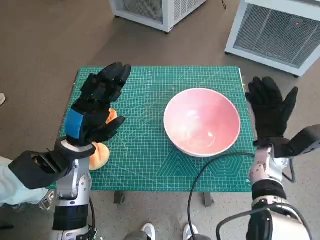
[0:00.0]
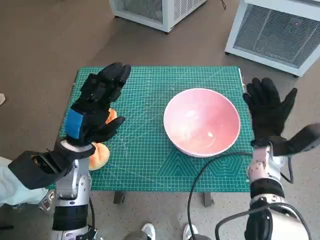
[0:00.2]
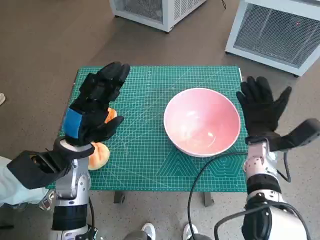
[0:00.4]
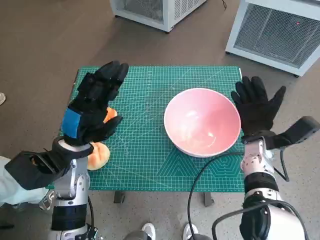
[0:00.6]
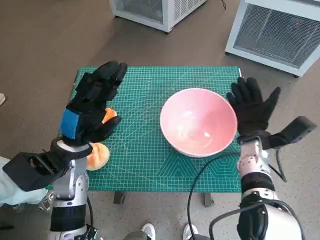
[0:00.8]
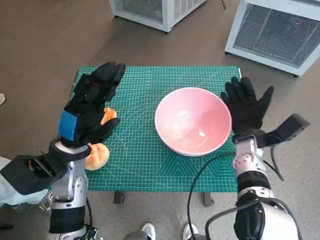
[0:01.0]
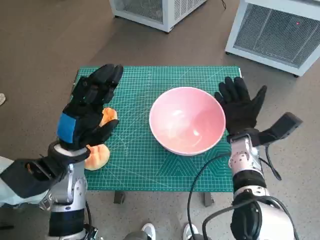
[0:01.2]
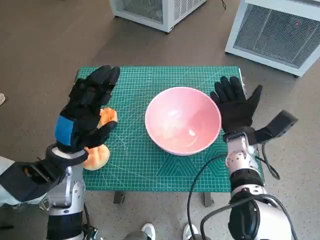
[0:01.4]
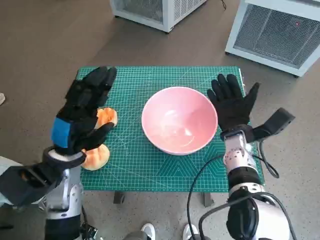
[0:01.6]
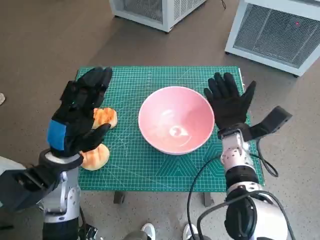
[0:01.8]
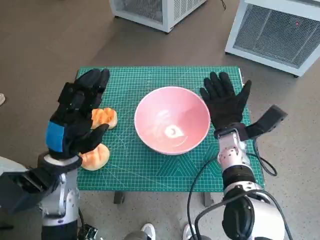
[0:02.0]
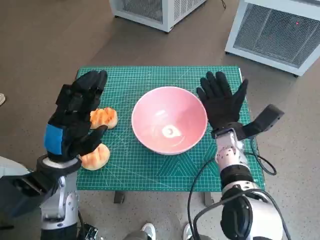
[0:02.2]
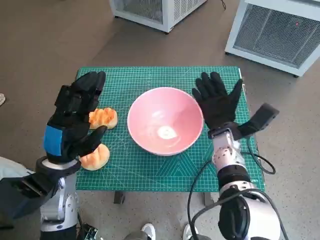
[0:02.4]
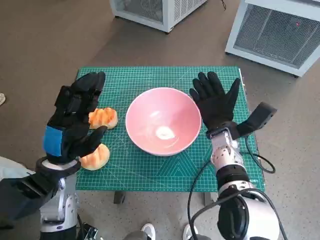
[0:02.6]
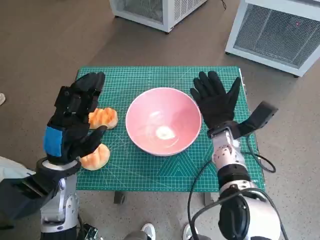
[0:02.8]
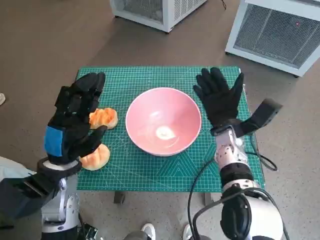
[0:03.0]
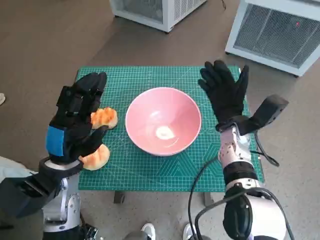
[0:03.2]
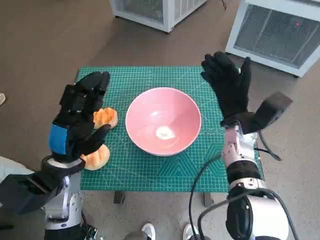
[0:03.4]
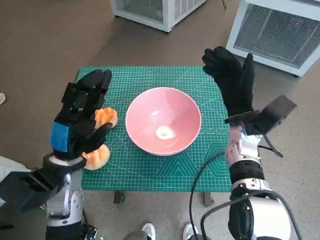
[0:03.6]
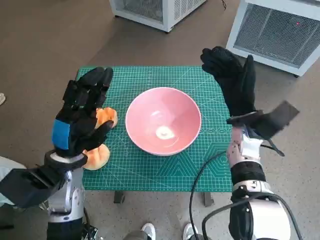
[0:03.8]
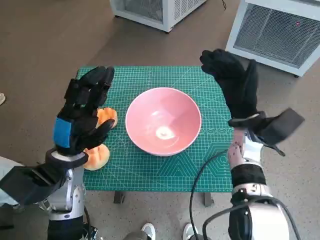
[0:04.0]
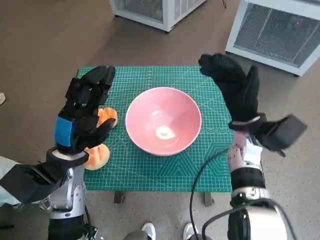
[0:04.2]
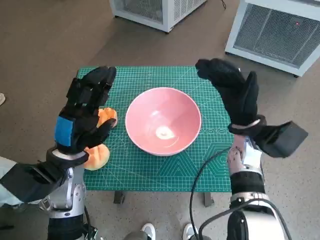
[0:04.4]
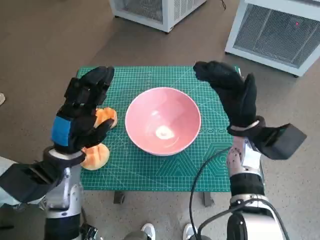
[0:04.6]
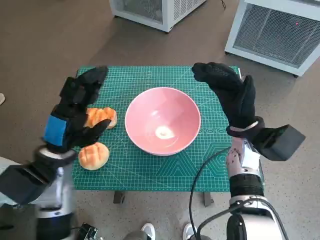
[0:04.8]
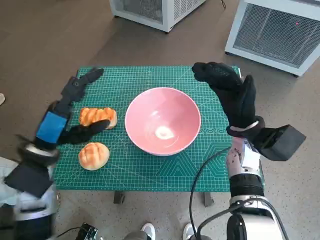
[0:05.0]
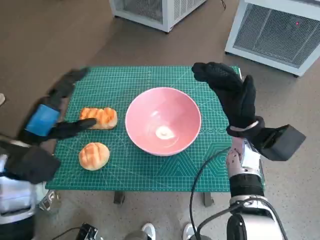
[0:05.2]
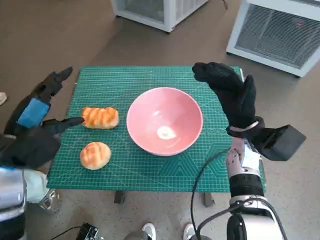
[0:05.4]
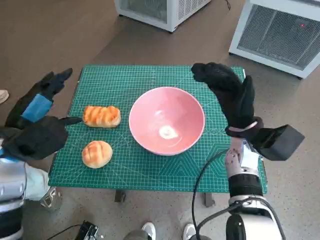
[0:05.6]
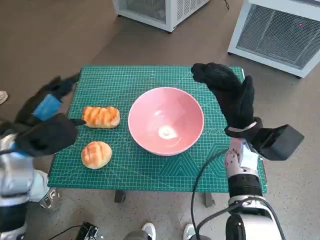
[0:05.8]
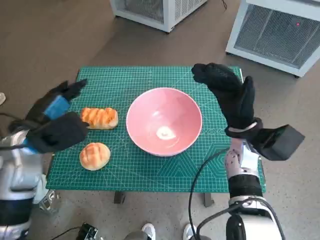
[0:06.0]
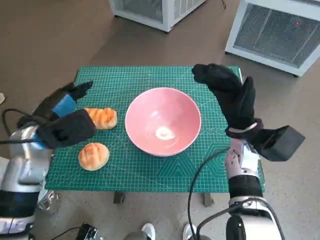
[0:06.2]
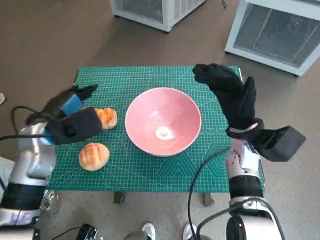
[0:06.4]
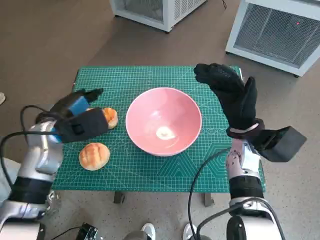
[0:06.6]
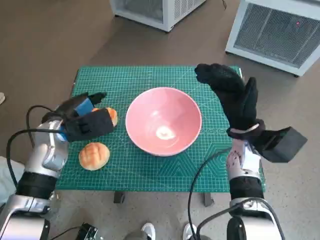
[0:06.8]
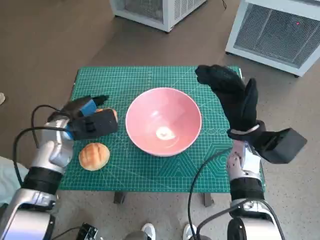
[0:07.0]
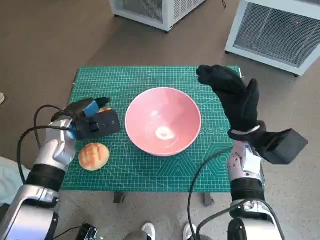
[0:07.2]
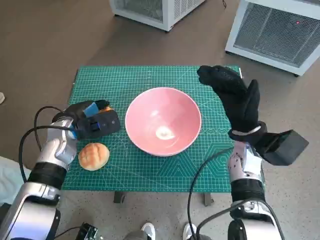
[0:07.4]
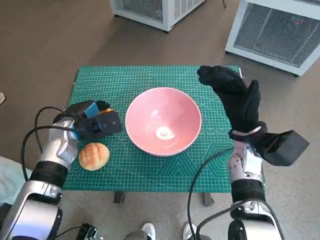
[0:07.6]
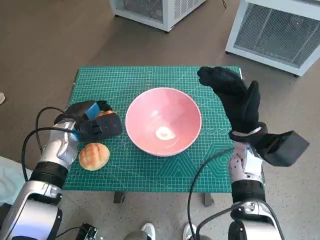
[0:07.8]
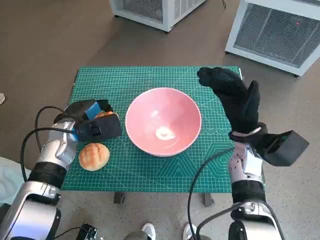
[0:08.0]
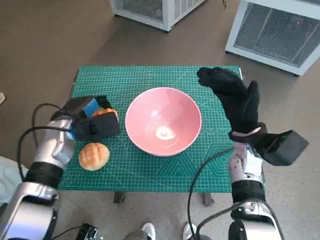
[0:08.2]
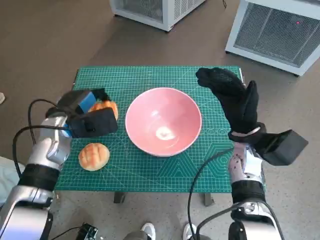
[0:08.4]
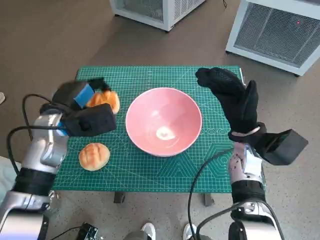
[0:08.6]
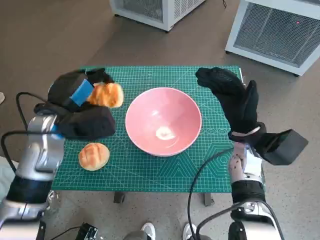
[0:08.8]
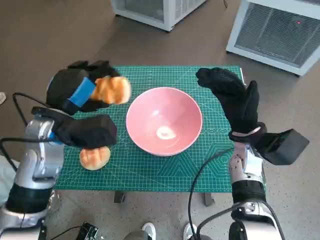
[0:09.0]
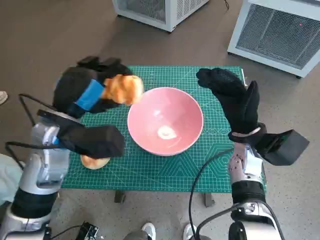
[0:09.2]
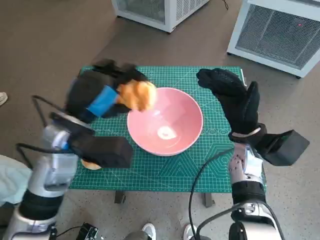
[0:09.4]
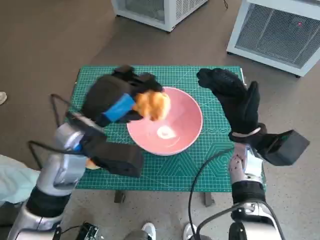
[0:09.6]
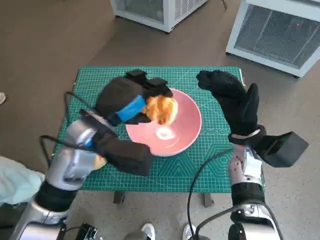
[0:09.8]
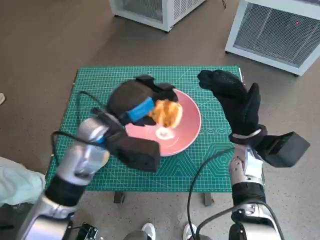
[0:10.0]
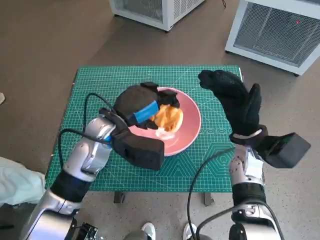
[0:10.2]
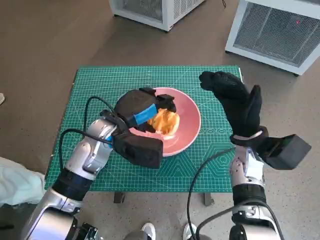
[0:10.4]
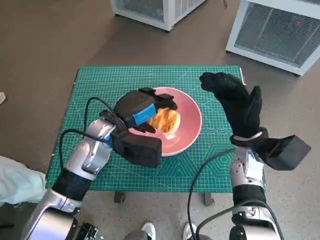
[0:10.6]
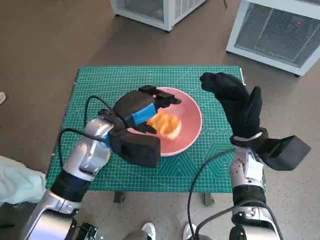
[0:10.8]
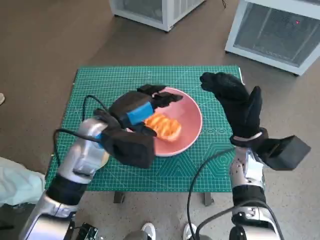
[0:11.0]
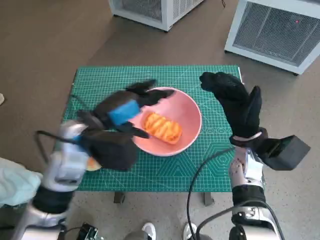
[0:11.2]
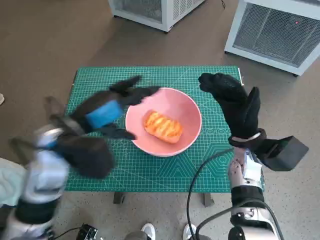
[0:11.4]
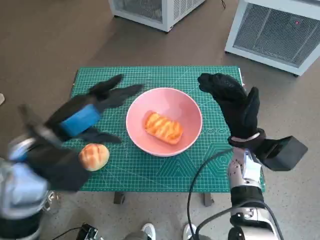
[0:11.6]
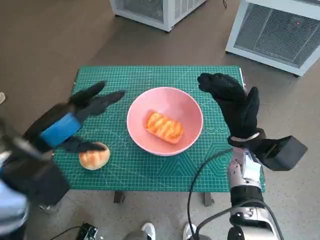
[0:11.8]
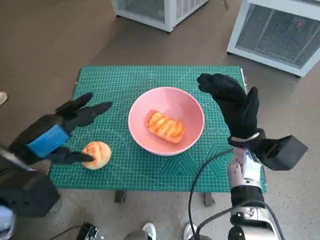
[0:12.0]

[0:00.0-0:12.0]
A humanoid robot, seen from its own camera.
Task of the whole recording: Push the bowl into the center of the table and put the bread into the bowl.
Step, 0:00.0 to 0:02.8: Move the pink bowl to the center of table with right hand.
Step, 0:03.0 to 0:07.6: Grasp the long bread with left hand.
Step, 0:07.8 to 0:11.0: Place the long bread in pink bowl with left hand.
0:00.0 to 0:01.6: The right hand travels to the left by roughly 5 cm.
0:04.4 to 0:06.0: The left hand travels to the left by approximately 5 cm.
0:06.0 to 0:07.6: The left hand travels downward and forward by some 10 cm.
0:07.6 to 0:09.0: The left hand goes roughly 10 cm upward.
0:09.0 to 0:10.4: The left hand shifts approximately 10 cm to the right and downward.
0:10.4 to 0:12.0: The left hand shifts some 20 cm to the left, backward and upward.

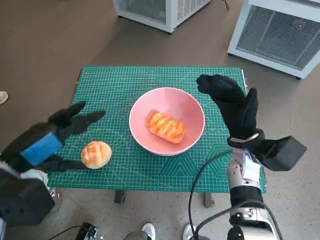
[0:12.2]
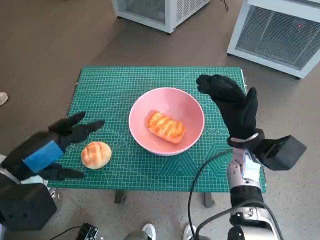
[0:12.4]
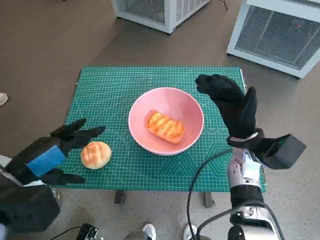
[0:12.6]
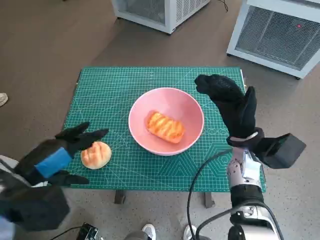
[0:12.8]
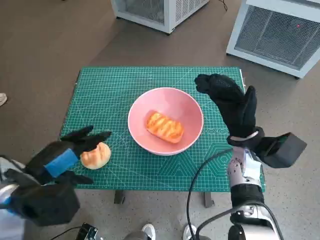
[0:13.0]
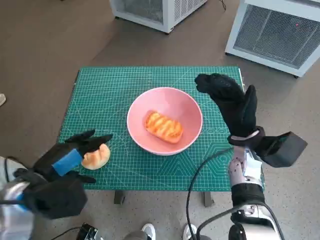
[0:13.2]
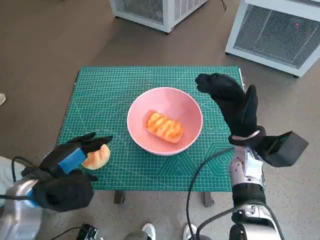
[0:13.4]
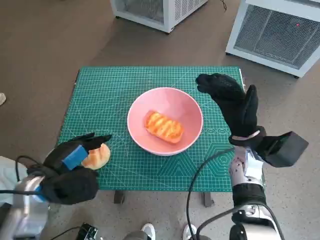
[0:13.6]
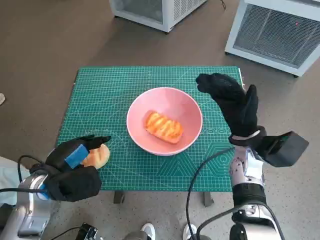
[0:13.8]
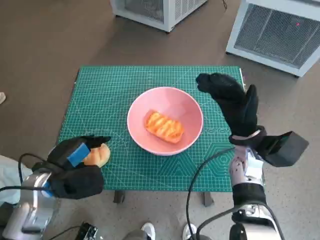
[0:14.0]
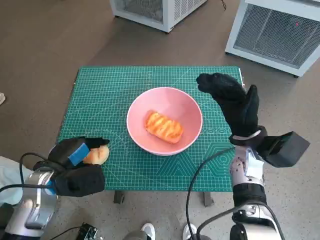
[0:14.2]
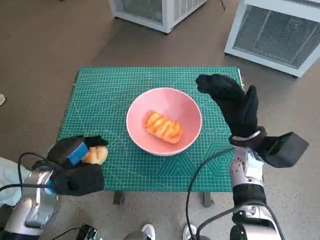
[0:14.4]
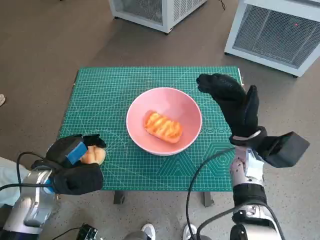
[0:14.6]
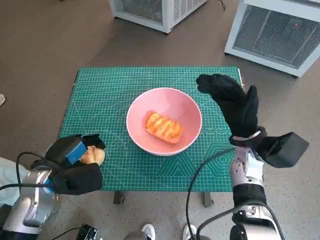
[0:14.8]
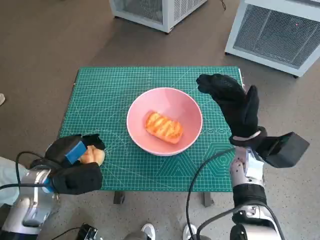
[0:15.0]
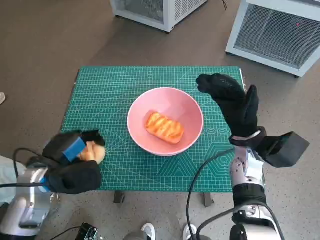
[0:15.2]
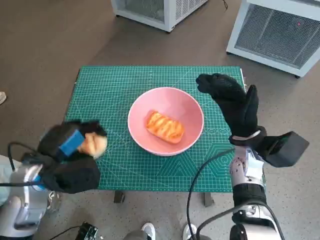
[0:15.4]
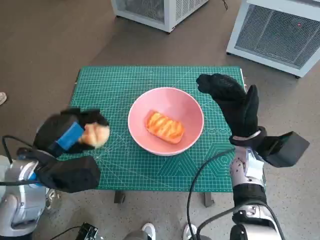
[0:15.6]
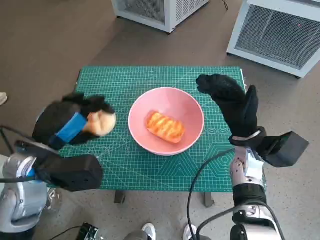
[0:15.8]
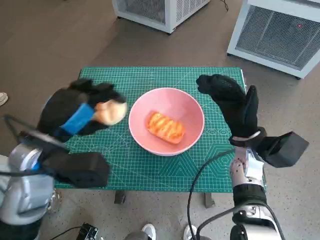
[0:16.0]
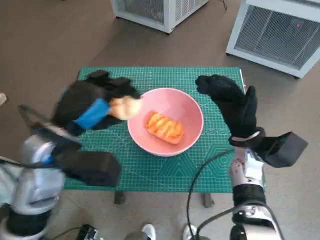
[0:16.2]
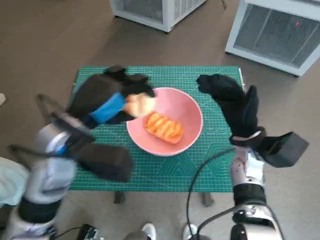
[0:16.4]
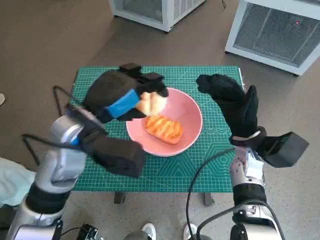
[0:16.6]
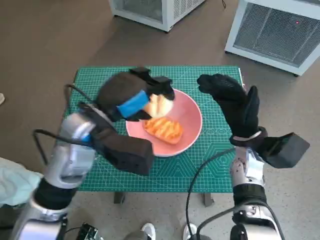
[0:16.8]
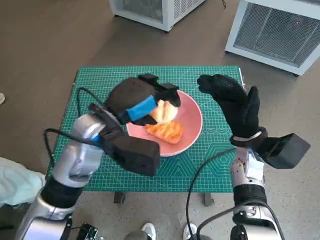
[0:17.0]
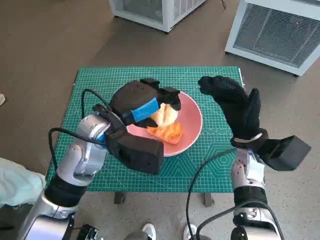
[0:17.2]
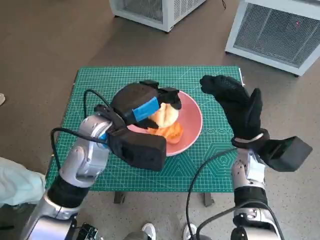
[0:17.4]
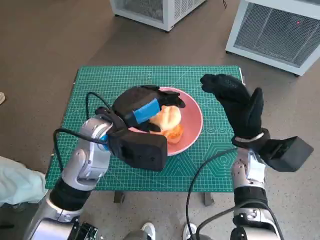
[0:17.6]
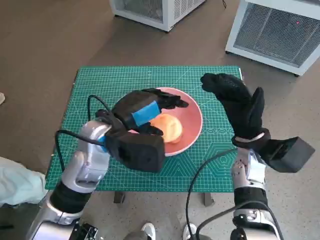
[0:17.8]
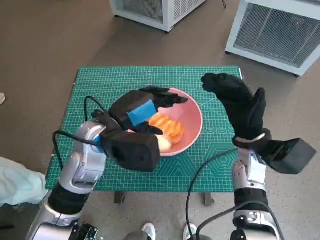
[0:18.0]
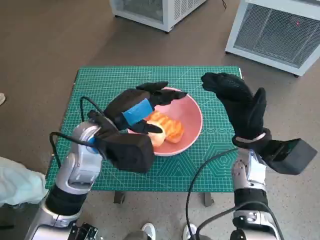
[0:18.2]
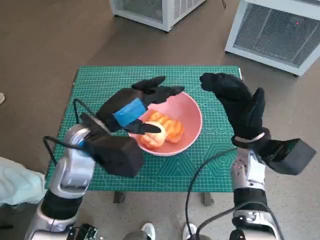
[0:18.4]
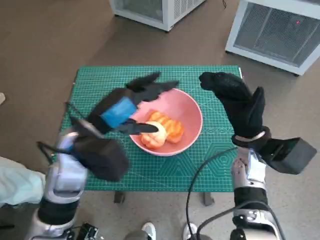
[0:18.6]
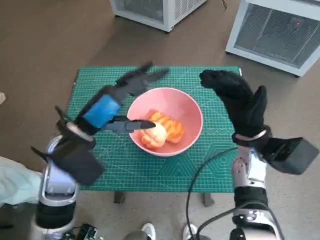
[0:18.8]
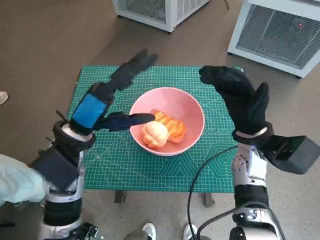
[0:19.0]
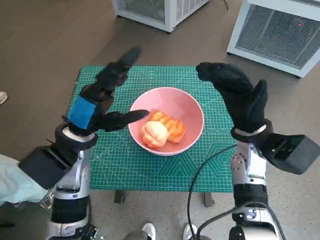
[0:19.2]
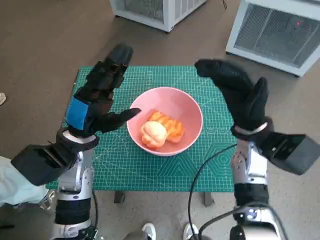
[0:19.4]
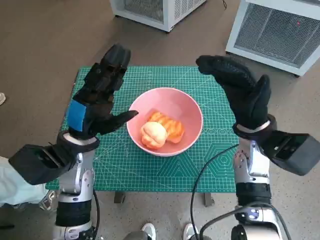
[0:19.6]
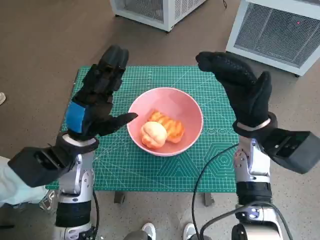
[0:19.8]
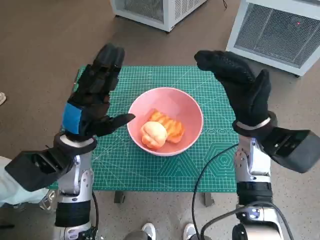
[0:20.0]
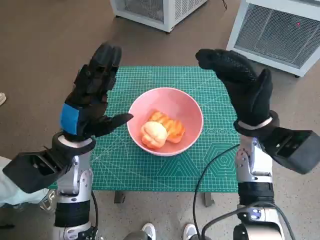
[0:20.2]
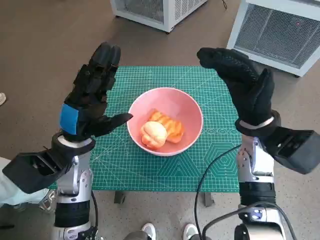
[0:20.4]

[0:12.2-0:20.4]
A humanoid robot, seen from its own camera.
Task of the whole recording: Push the bowl into the center of the table and put the bread into the bowl.
Step, 0:12.2 to 0:13.8: Grasp the round bread with left hand.
Step, 0:14.2 to 0:18.4: Place the round bread in pink bowl with left hand.
0:12.2 to 0:13.8: The left hand moves downward, approximately 10 cm.
0:13.8 to 0:15.4: The hands stay close to where they were, moving slightly.
0:15.4 to 0:17.2: The left hand is displaced to the right, forward and upward by approximately 15 cm.
0:17.2 to 0:18.8: The left hand ends up approximately 5 cm from where it was.
0:18.8 to 0:20.4: The left hand moves about 5 cm.

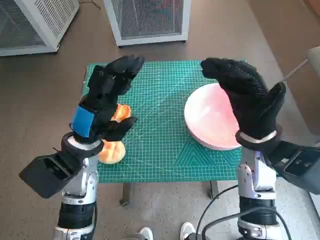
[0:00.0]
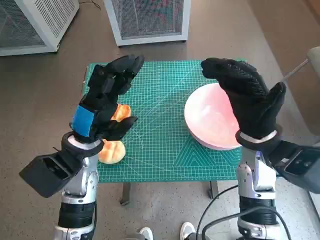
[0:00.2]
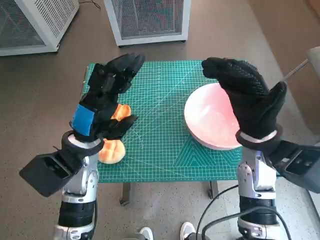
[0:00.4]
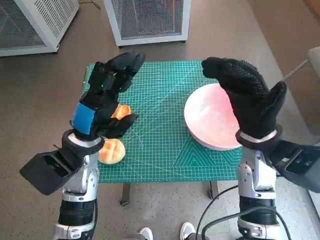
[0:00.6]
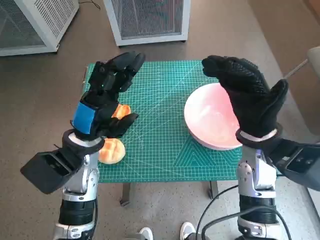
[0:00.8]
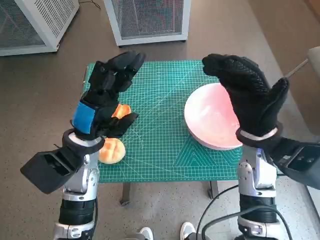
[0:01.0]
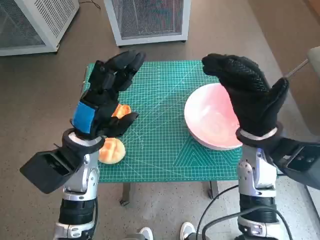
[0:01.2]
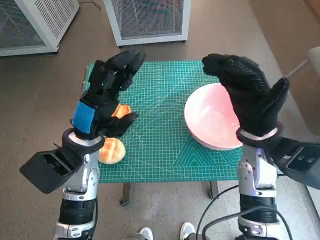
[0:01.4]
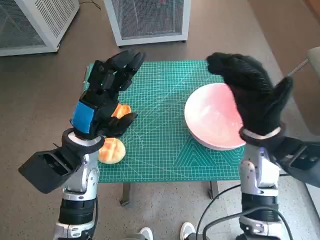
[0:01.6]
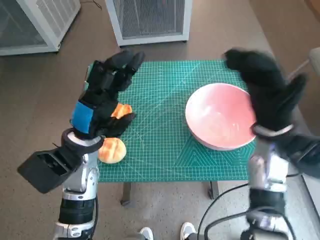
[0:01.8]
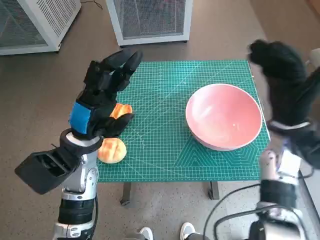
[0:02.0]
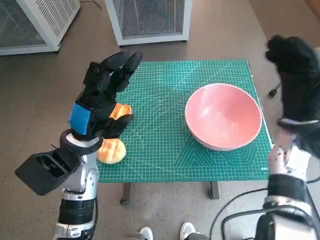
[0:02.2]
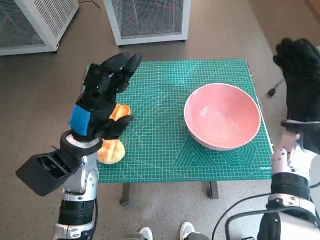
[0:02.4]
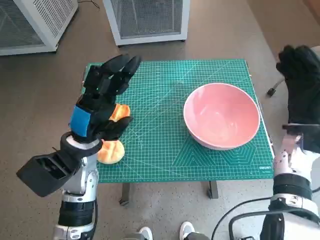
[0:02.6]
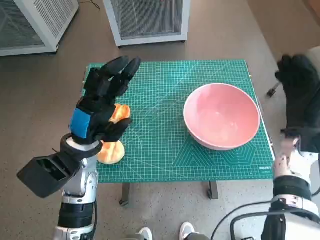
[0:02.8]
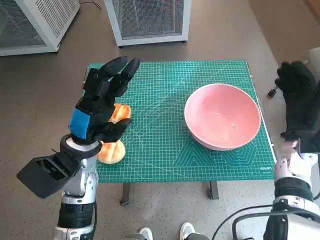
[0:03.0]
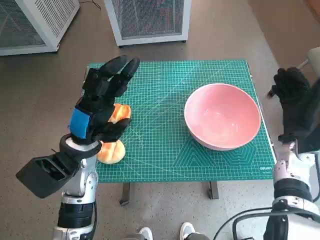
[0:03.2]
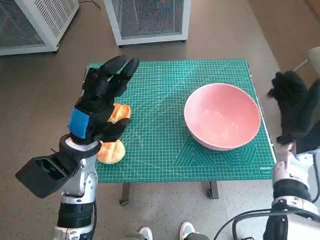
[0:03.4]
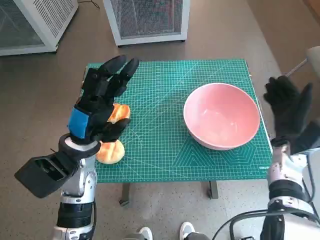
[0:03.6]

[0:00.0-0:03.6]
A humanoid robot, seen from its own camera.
Task of the whole recording: Push the bowl into the center of the table and put the bread into the bowl.
0:01.8 to 0:03.6: The right hand shifts some 10 cm downward and to the right.
